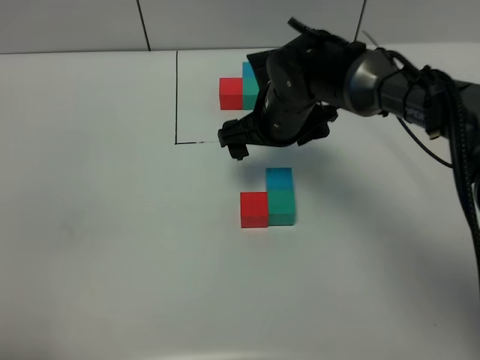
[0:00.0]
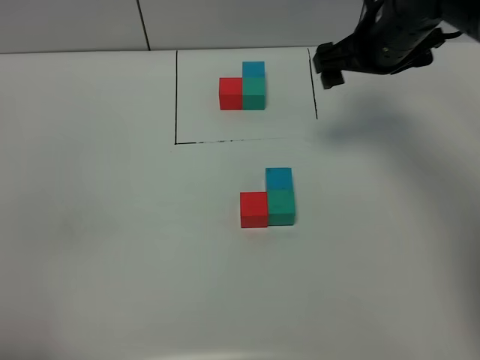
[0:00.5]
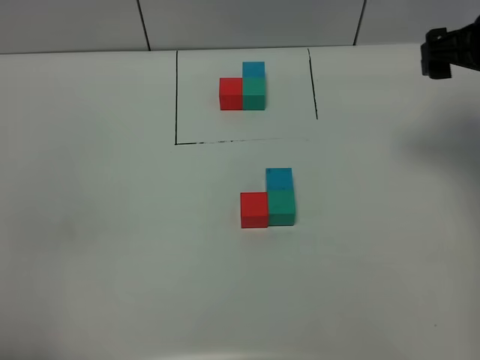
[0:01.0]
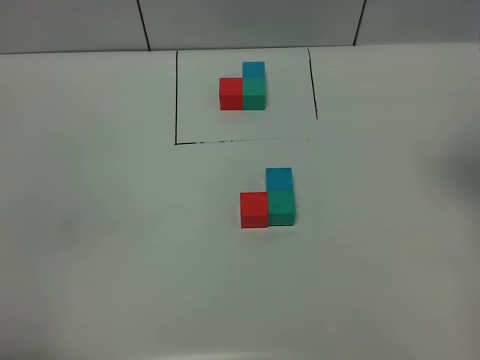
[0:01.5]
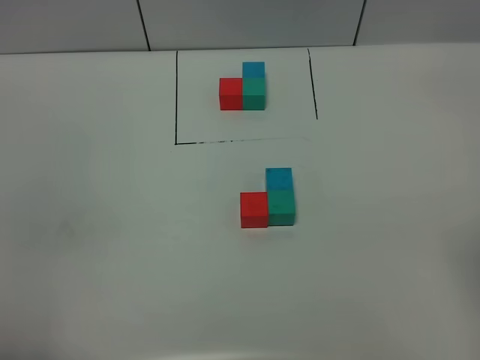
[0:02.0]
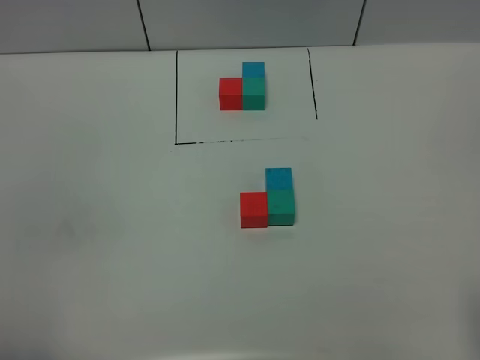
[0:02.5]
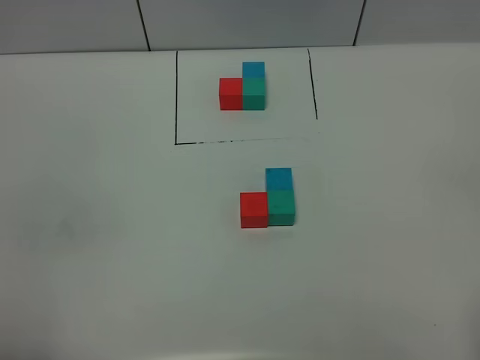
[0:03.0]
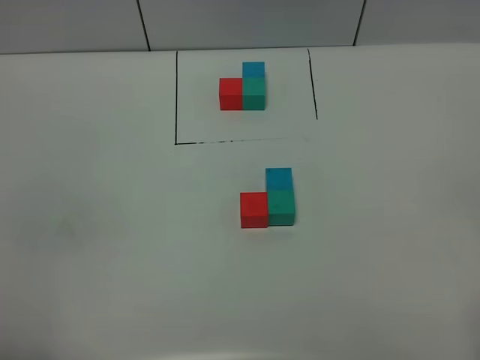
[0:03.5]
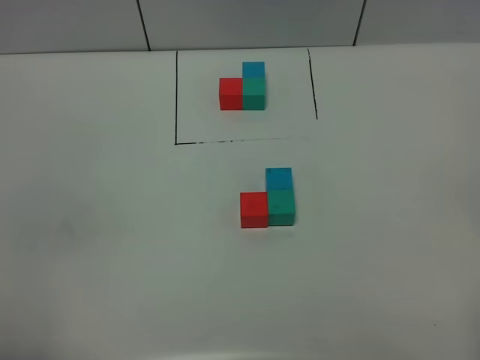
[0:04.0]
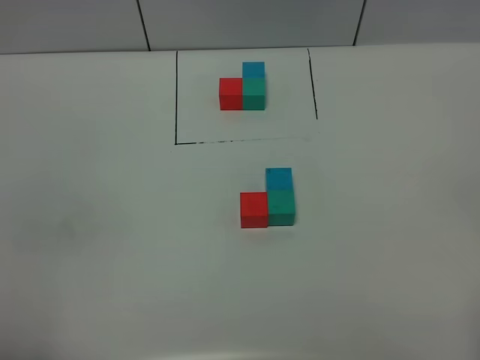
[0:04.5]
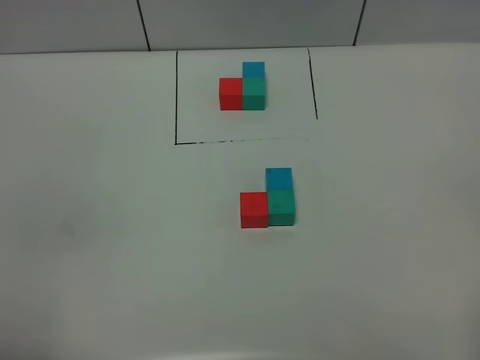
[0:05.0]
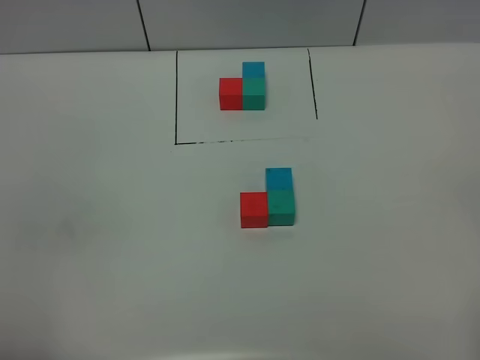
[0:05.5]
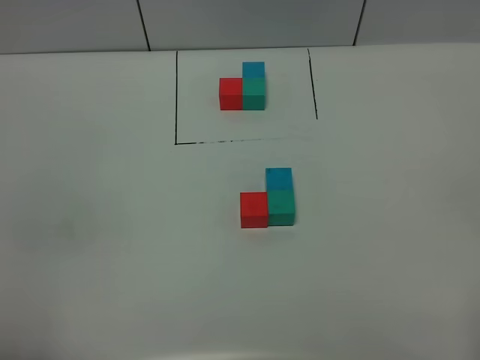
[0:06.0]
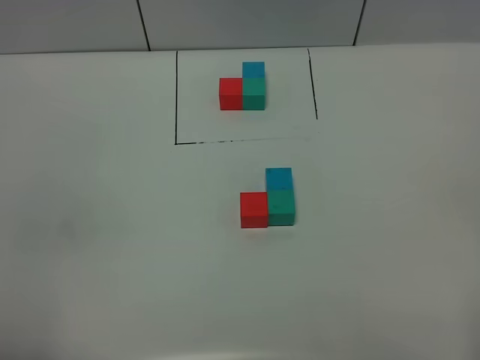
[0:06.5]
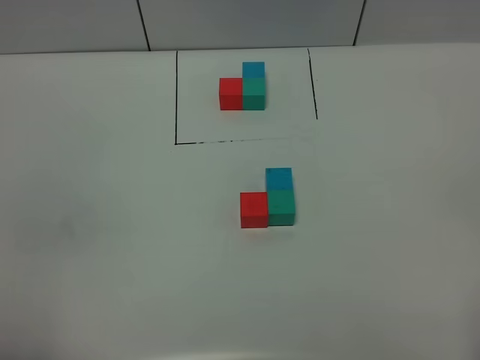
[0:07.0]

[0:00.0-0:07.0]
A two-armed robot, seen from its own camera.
Task of the whole recording: According to the building block template in front, assemble the scattered blocks together.
0:00.0 to 0:02.0: The right gripper is displaced backward, to the right and upward by about 40 cm.
0:03.5 to 0:07.0: The two grippers keep their place.

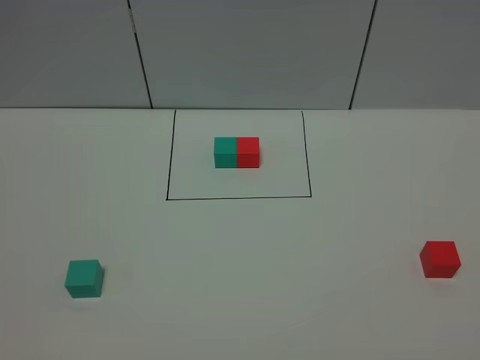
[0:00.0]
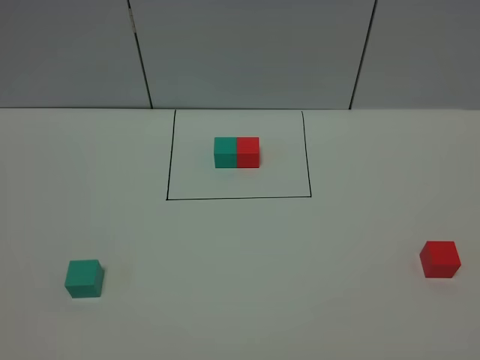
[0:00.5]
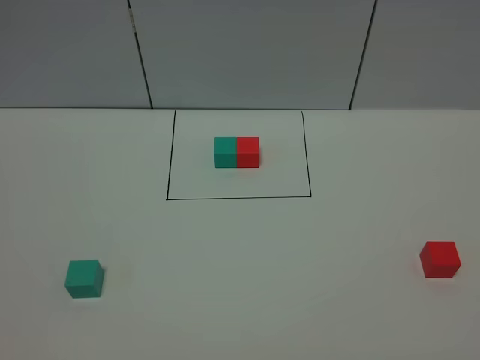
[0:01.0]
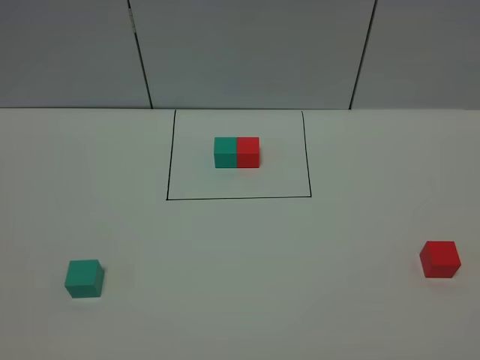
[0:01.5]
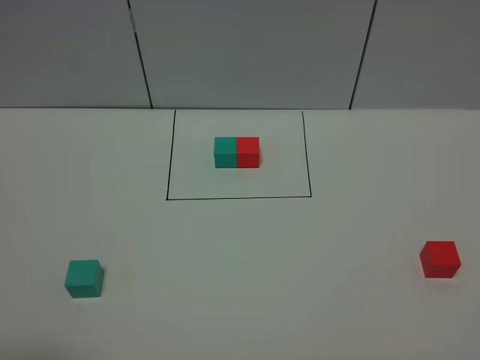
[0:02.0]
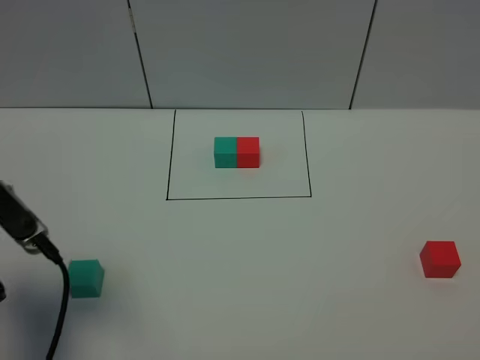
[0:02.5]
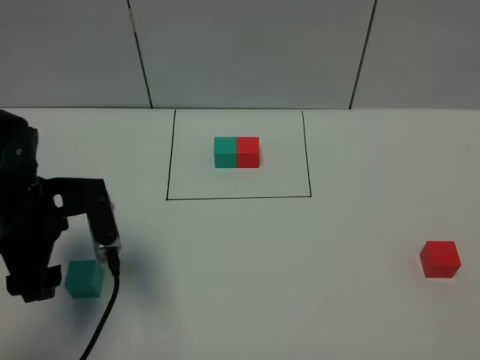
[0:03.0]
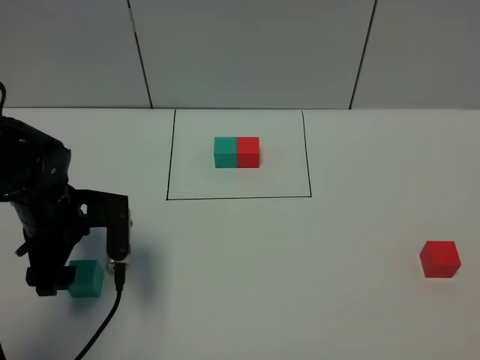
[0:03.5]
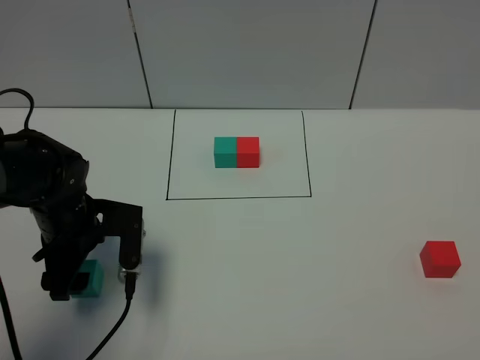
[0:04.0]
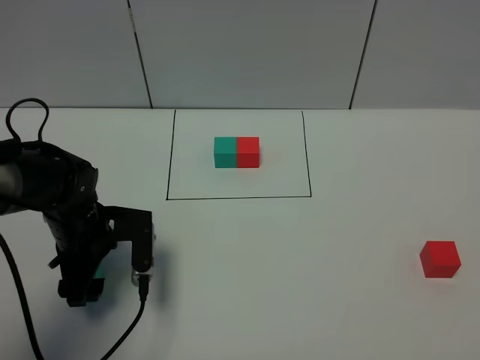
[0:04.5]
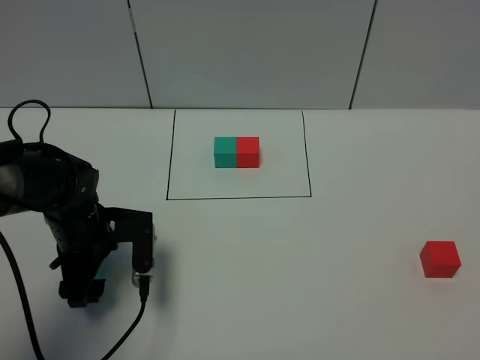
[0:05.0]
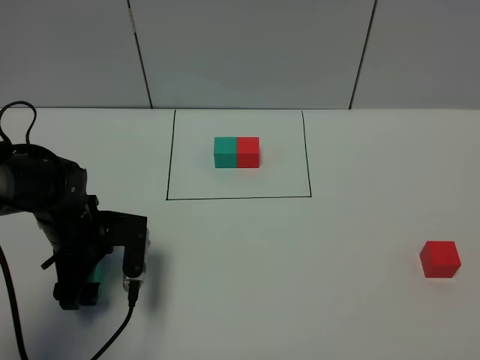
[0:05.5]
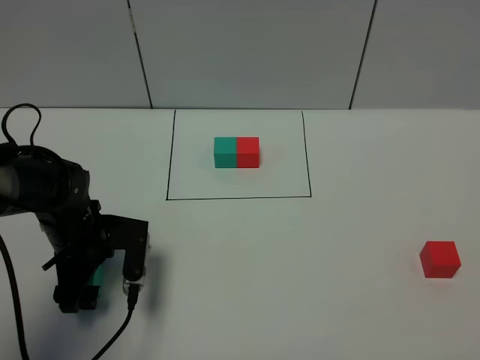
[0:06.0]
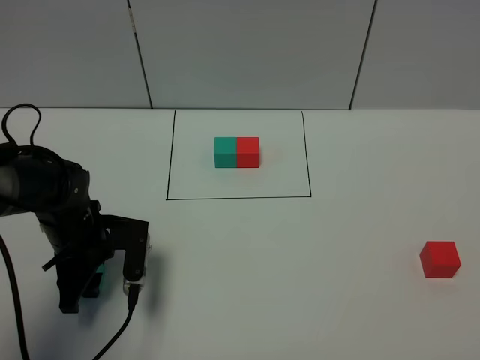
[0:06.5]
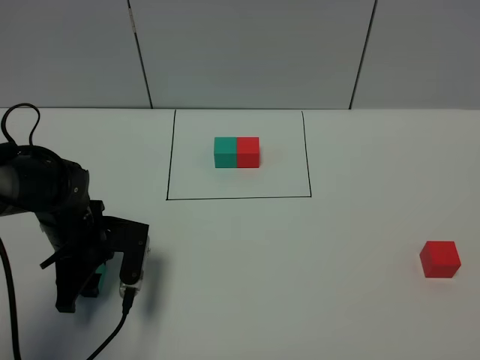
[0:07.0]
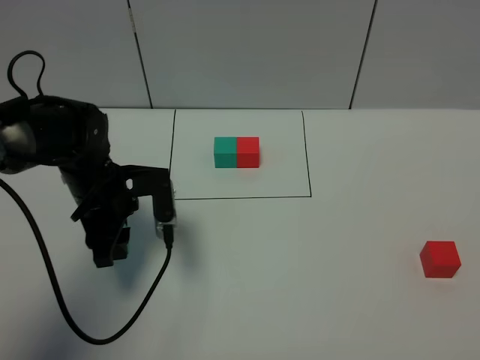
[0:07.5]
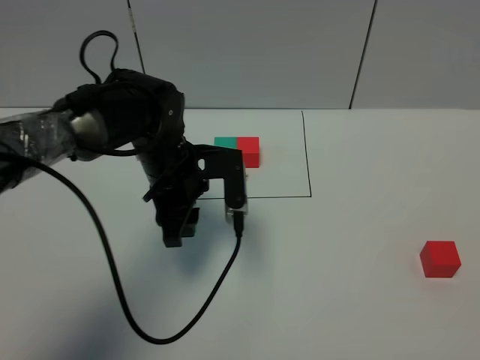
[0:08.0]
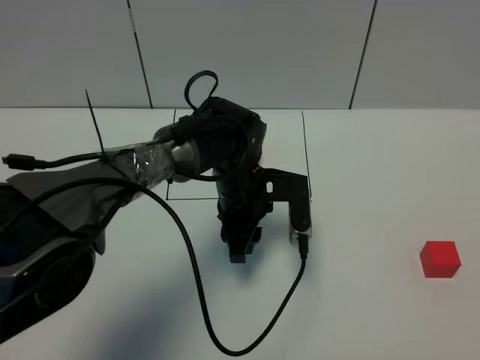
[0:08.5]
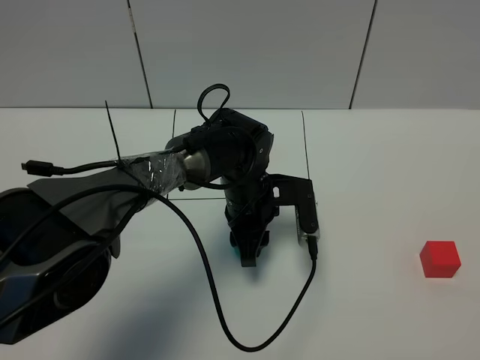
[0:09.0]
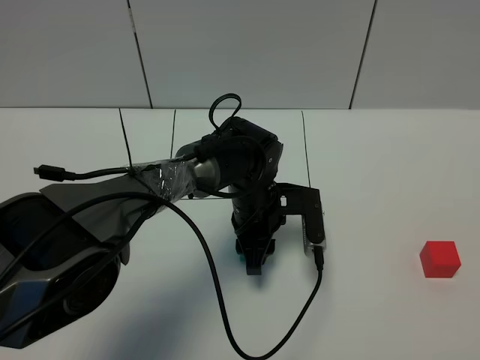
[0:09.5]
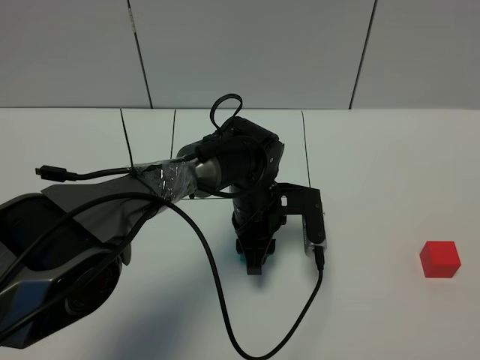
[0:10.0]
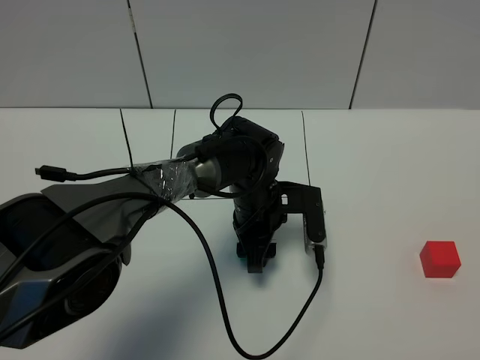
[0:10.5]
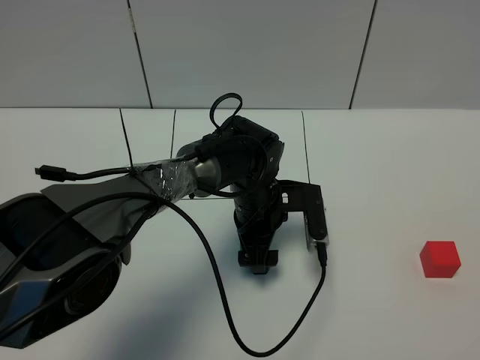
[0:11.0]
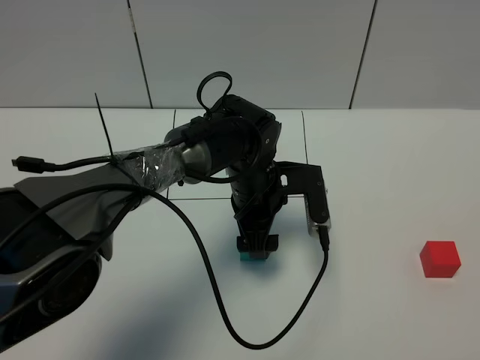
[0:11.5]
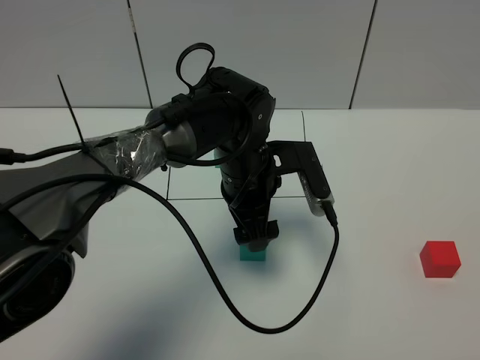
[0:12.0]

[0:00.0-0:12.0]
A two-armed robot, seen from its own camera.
Task of the whole recording: According to the building block template in front, assemble the scattered blocks together.
Step, 0:02.5 to 0:10.5: Put the green cube in the center of the table.
0:02.0 to 0:04.0: The left gripper moves forward and downward, some 25 cm.
0:04.0 to 0:06.0: The grippers make only small movements.
0:06.0 to 0:08.0: The left gripper travels to the right and upward by about 15 cm, and closes.
0:08.0 to 0:10.0: The left gripper shifts some 15 cm to the right and downward.
0:10.0 to 0:12.0: The left gripper travels upward by approximately 10 cm, and opens its fingers.

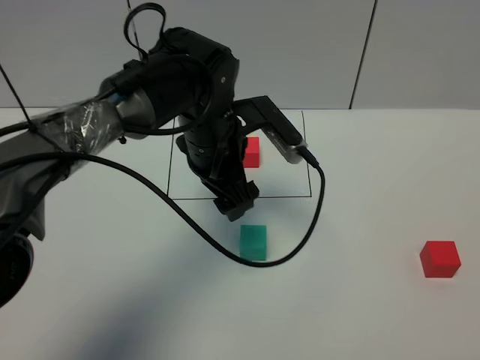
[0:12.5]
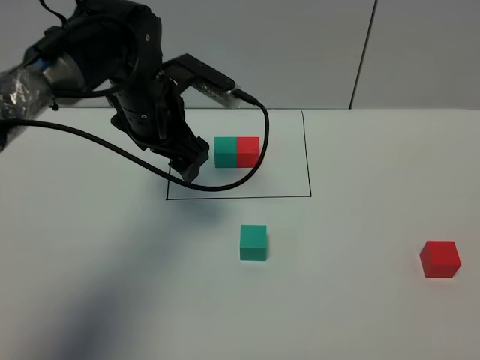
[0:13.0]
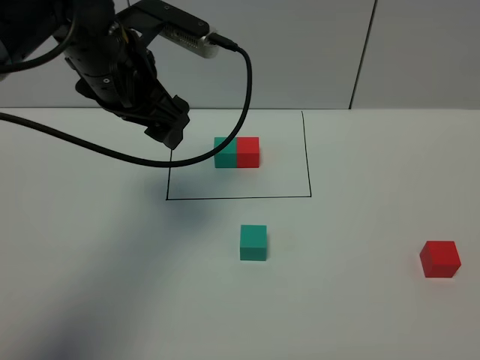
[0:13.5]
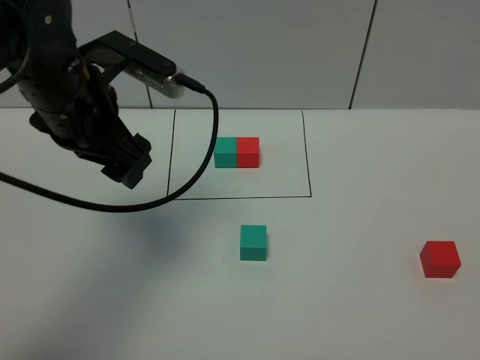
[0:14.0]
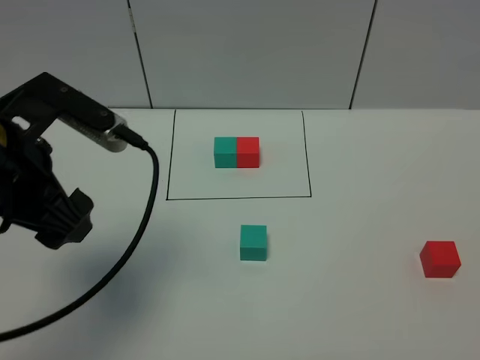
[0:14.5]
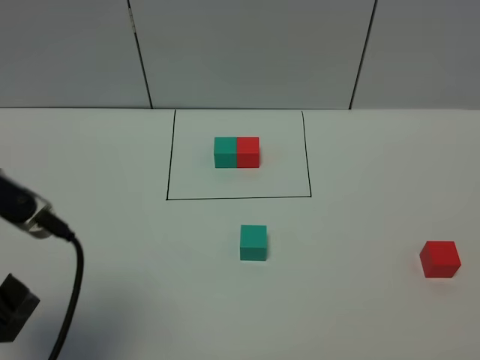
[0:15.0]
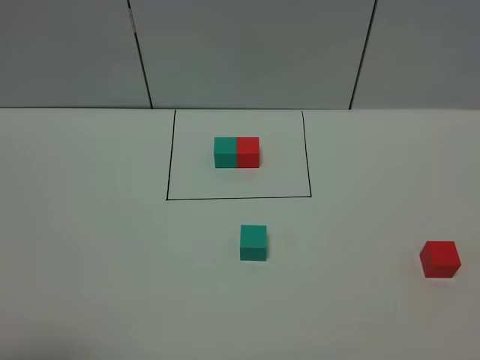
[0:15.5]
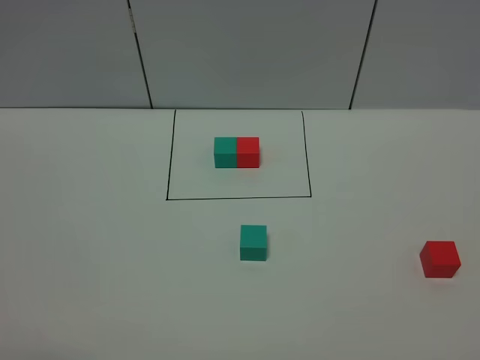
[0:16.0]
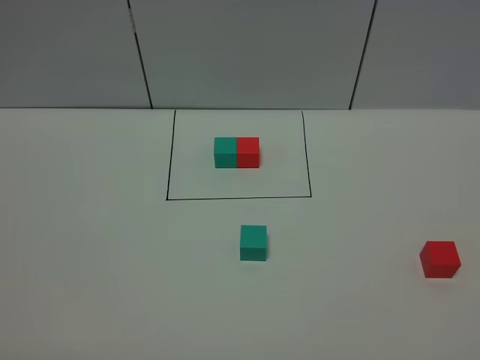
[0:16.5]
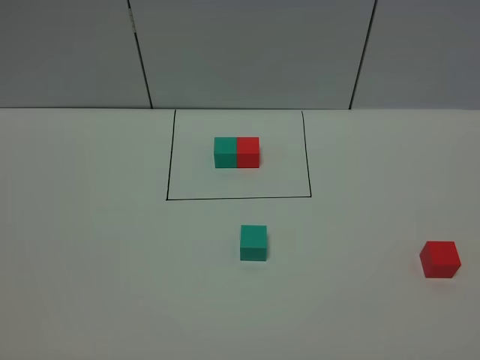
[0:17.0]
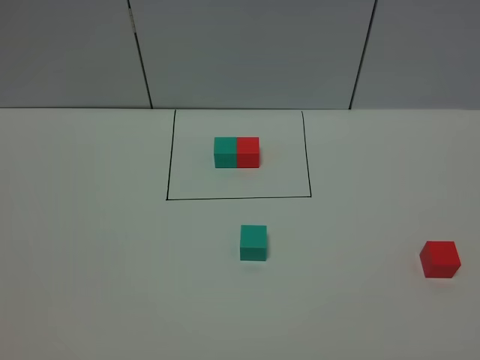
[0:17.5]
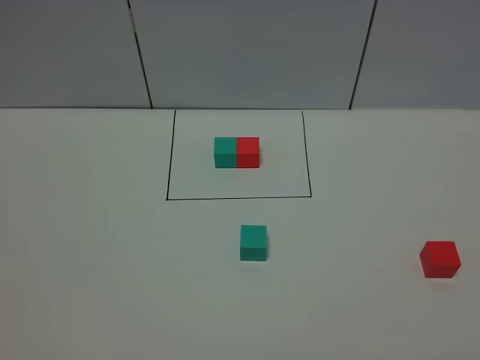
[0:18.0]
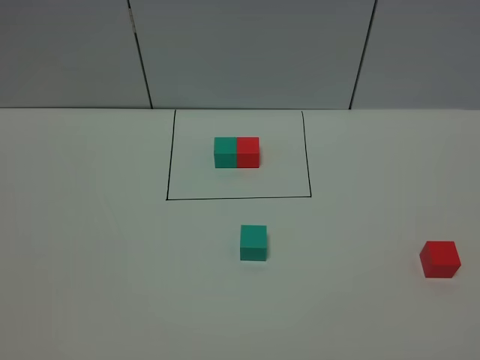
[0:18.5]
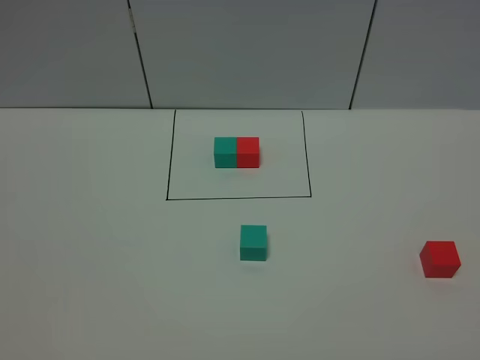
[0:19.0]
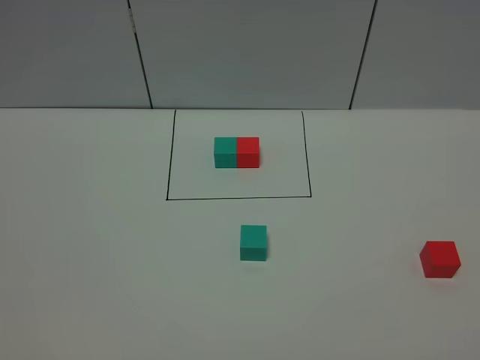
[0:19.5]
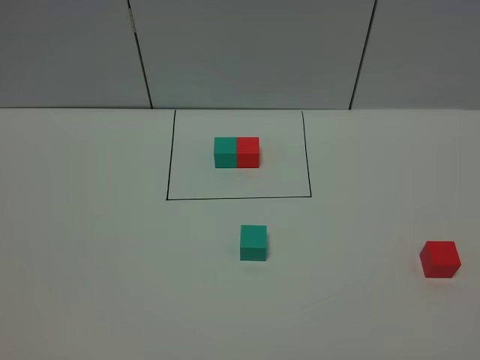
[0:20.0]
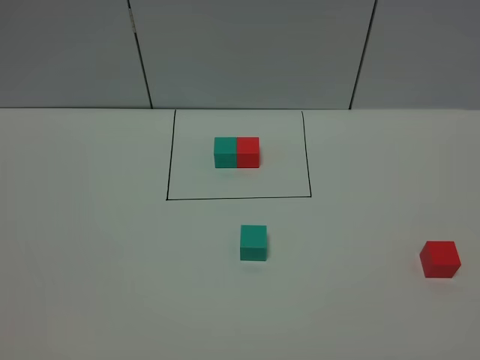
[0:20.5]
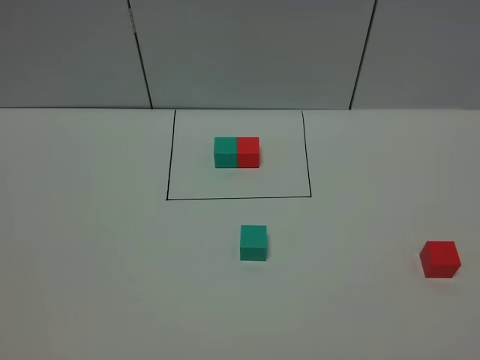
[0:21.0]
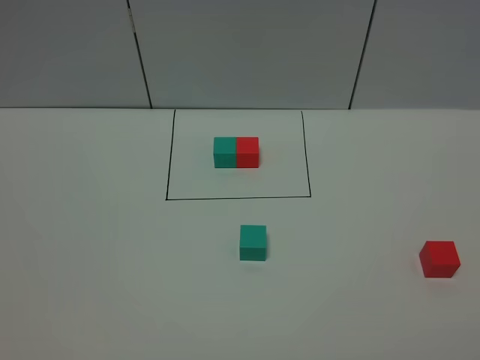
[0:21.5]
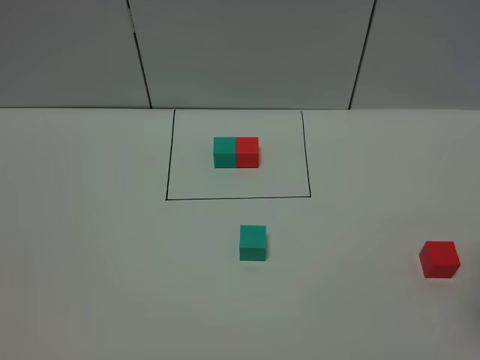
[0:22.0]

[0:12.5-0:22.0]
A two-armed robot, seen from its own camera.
Task of the whole recording: According to the building block template in front, assemble the scattered blocks together.
0:12.5 to 0:14.5: The left gripper travels to the left, backward and upward by some 25 cm.
0:14.5 to 0:16.5: The left gripper shifts approximately 25 cm backward and to the left.
